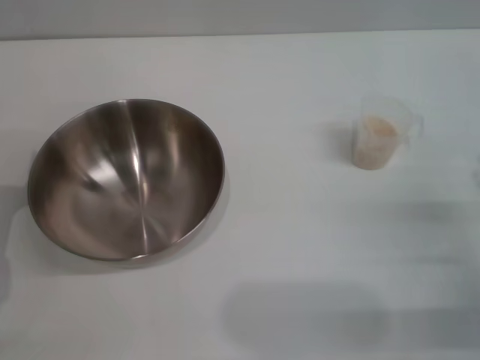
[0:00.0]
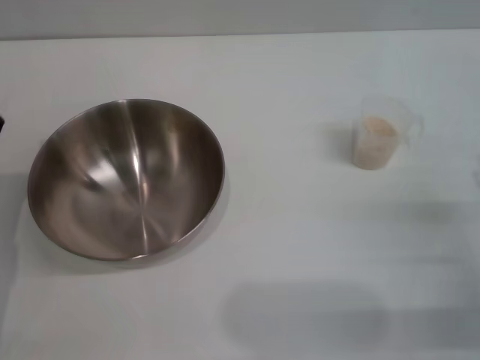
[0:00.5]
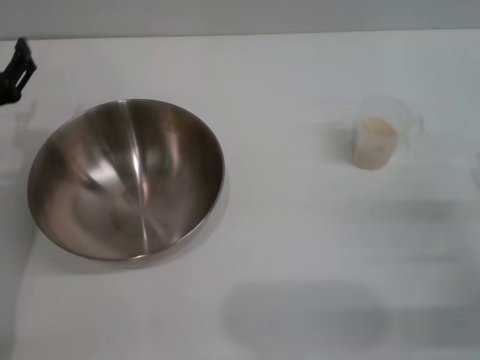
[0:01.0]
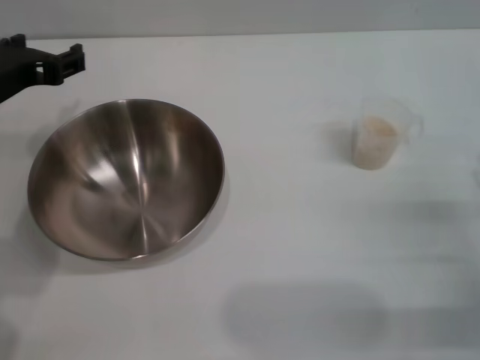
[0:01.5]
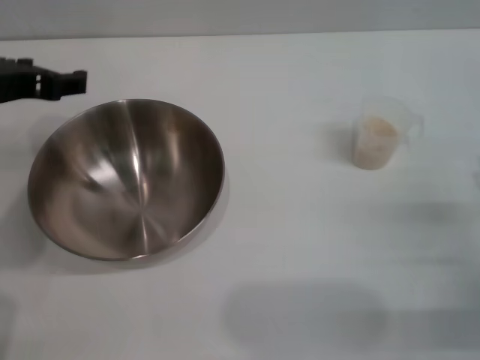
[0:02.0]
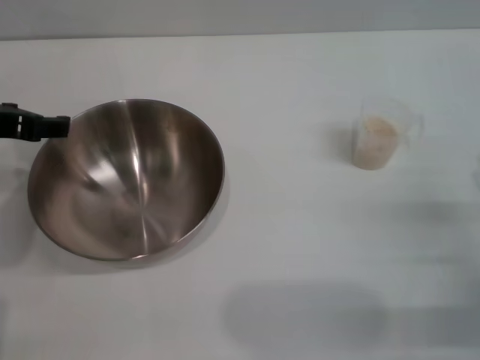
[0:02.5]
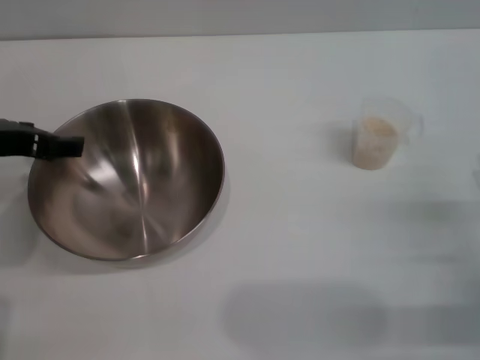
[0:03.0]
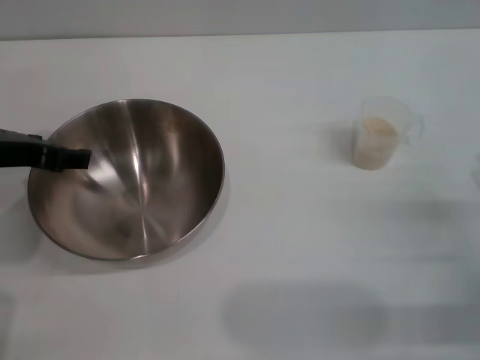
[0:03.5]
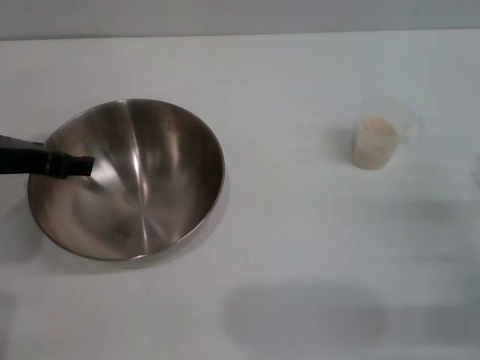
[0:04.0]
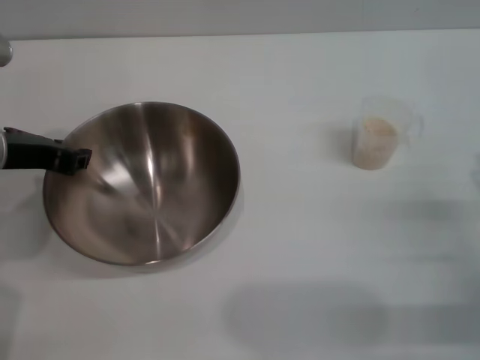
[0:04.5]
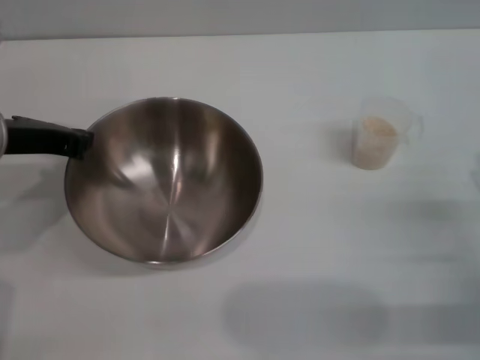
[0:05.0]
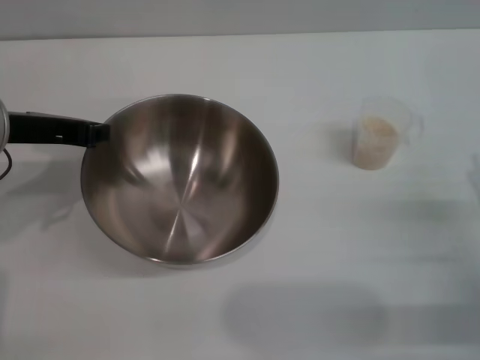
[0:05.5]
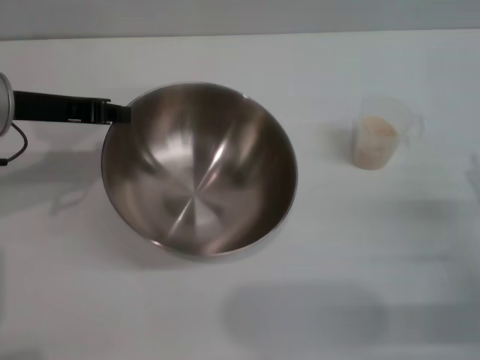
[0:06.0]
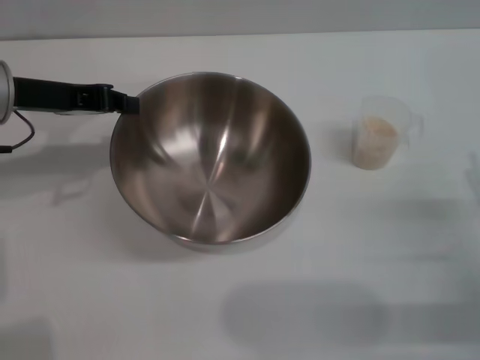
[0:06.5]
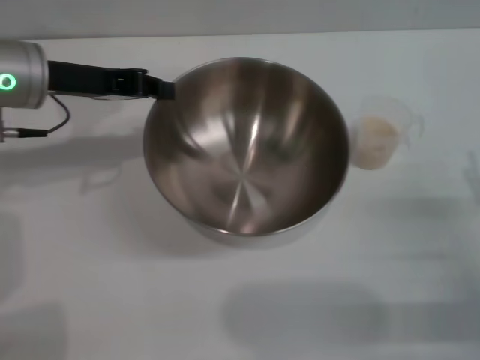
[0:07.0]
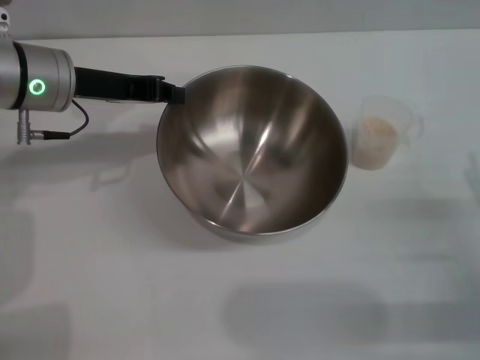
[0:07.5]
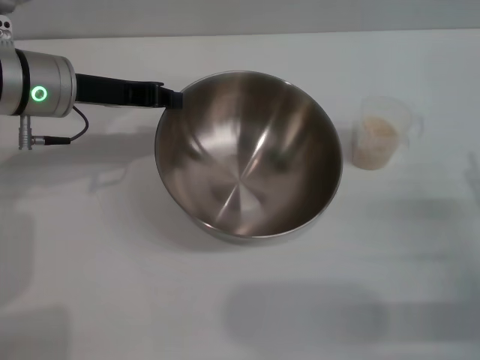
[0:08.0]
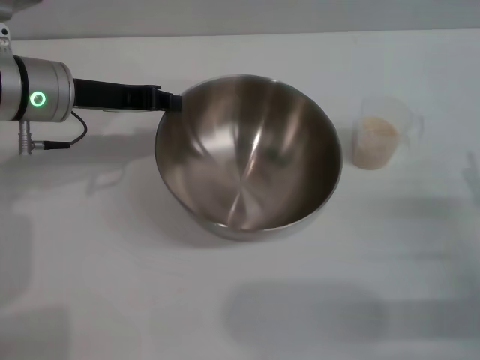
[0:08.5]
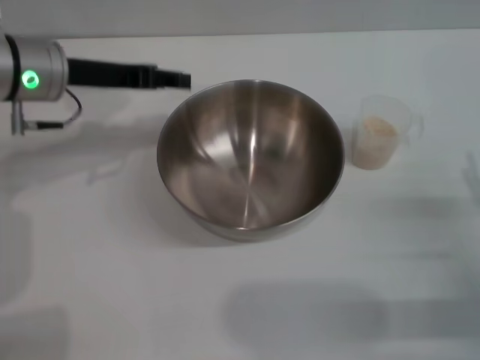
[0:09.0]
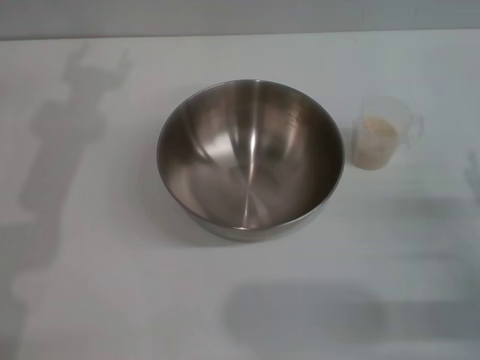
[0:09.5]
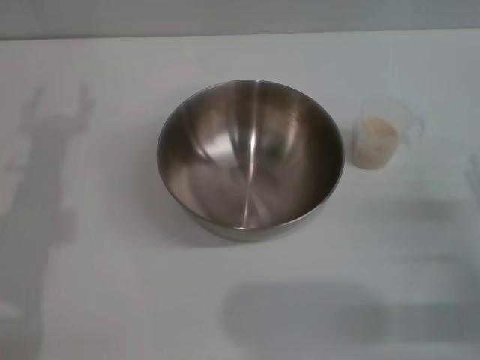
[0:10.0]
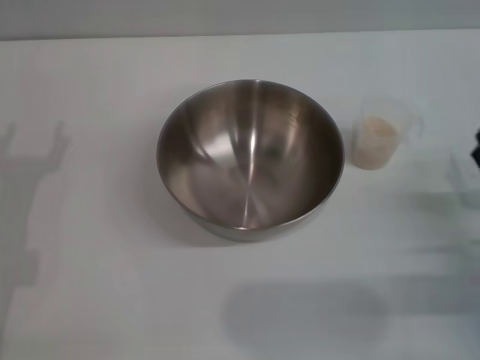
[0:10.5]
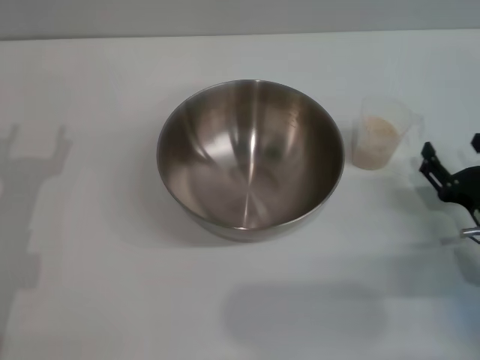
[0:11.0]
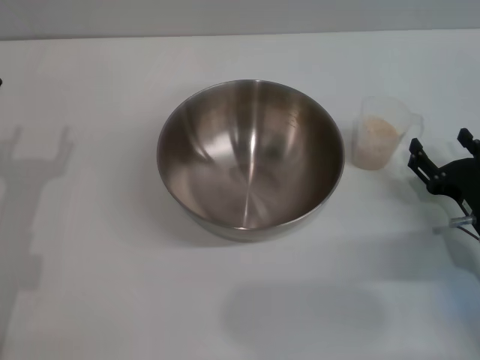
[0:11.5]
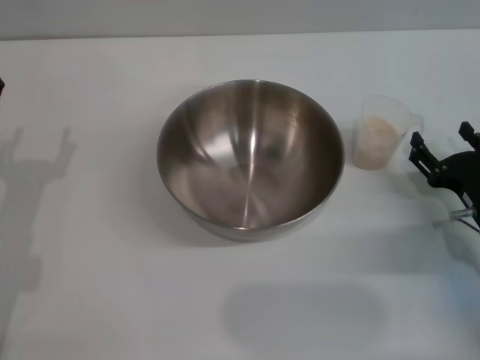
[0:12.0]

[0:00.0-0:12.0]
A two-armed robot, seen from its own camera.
Task of the whole recording: Place the bowl in the middle of the table with one hand and pour the rice from the grain cup into it with the other hand.
Step, 0:00.0 to 0:05.5: Pick up the bowl with the left gripper.
Step, 0:06.0 to 0:08.5: Place the bowl in the center of view with the left gripper.
0:00.0 to 0:02.0: The left gripper goes some 20 cm upward and forward.
0:02.0 to 0:04.0: The grippers move only a little.
0:04.0 to 0:06.0: The left gripper closes.
0:06.0 to 0:08.0: The left gripper changes place by about 5 cm.
0:08.0 to 0:10.0: The left gripper shifts roughly 10 cm backward, and opens its fingers.
0:10.0 to 0:12.0: The right gripper travels forward by some 5 cm, while the left gripper heads downward, covering roughly 5 cm.

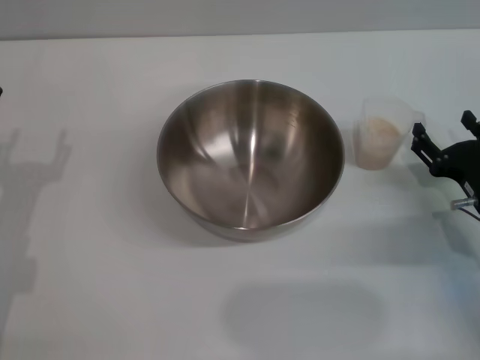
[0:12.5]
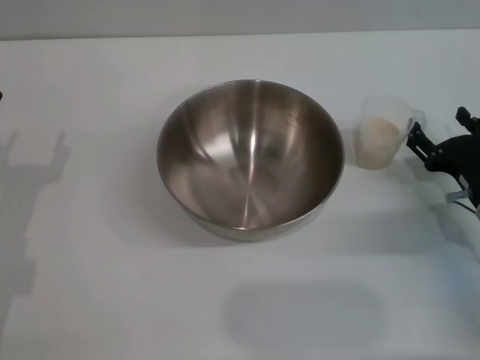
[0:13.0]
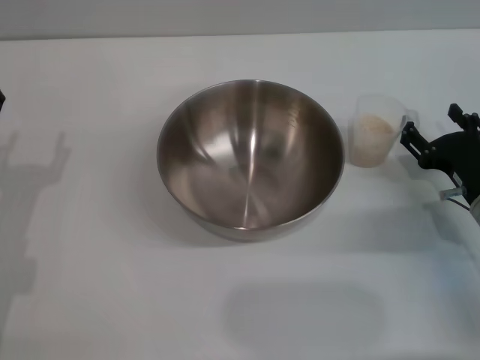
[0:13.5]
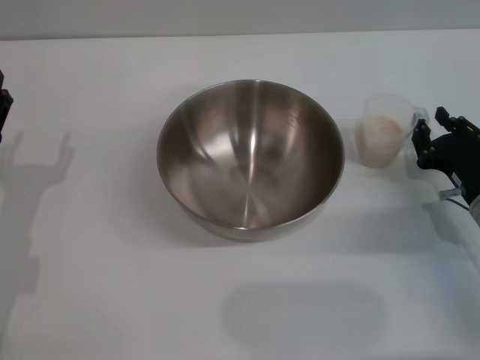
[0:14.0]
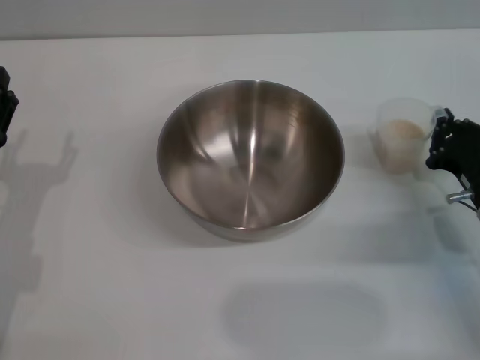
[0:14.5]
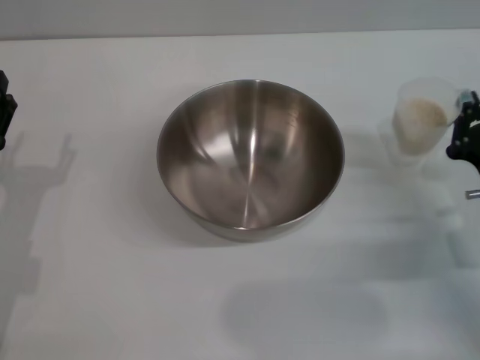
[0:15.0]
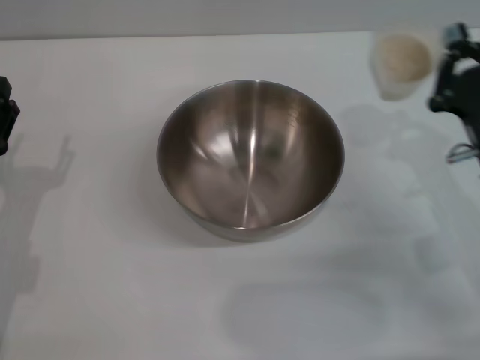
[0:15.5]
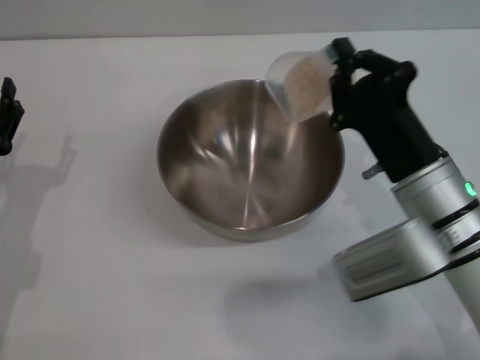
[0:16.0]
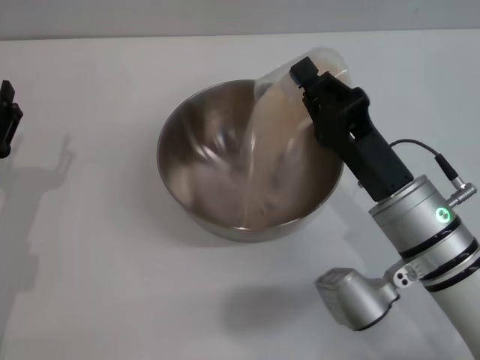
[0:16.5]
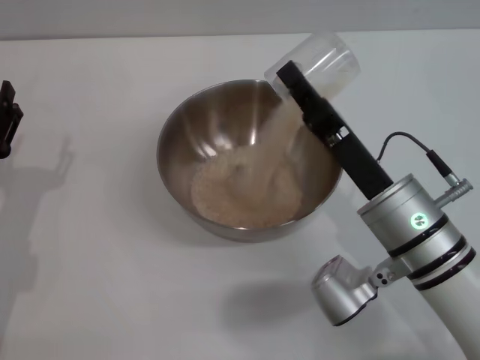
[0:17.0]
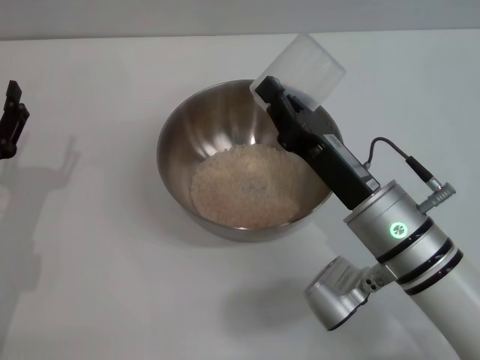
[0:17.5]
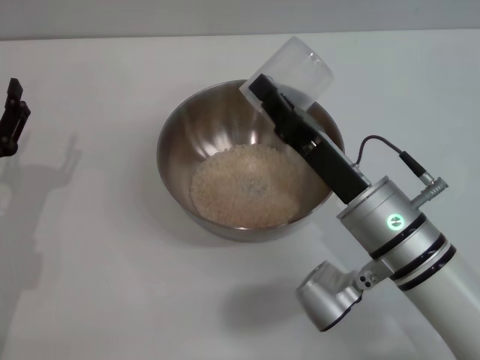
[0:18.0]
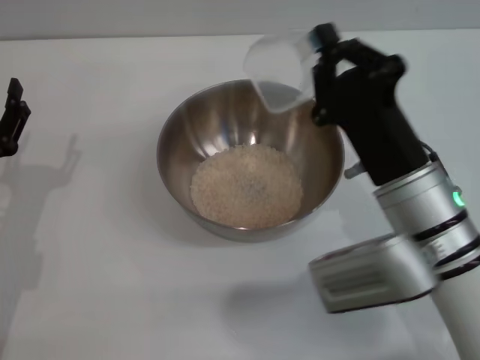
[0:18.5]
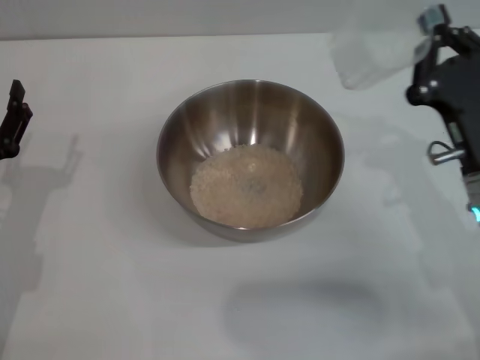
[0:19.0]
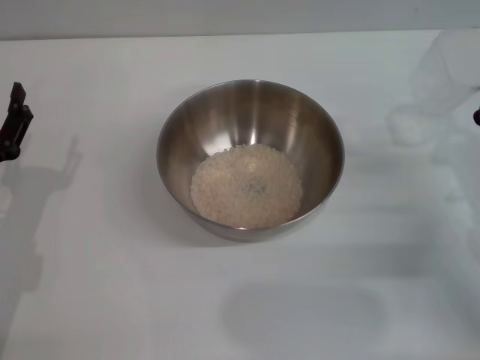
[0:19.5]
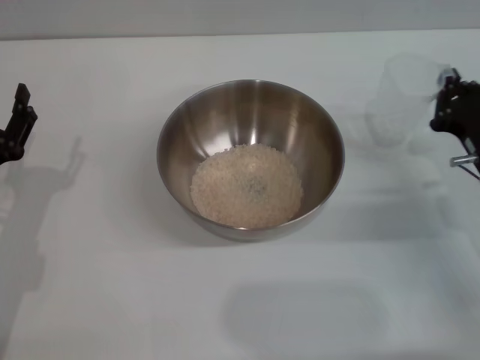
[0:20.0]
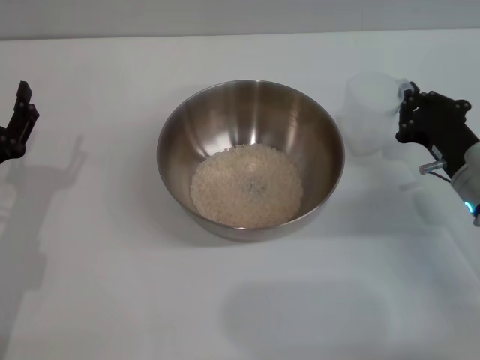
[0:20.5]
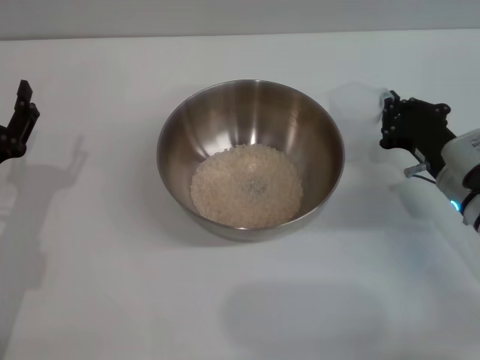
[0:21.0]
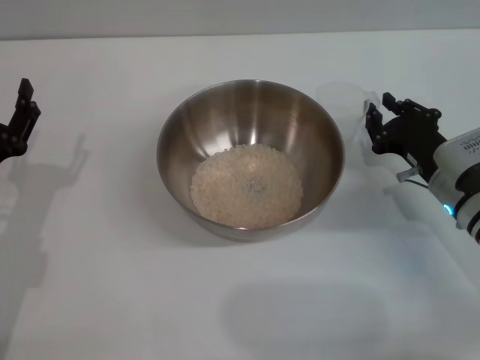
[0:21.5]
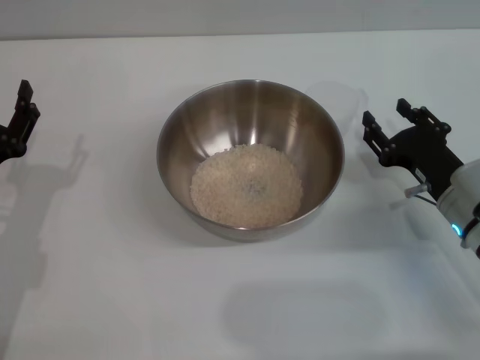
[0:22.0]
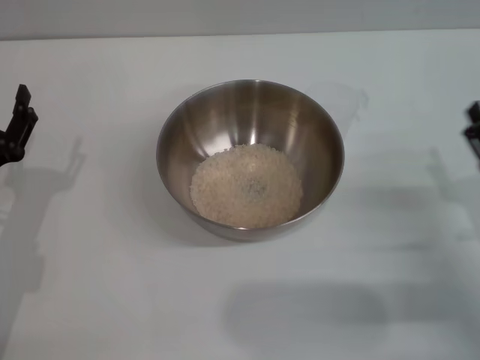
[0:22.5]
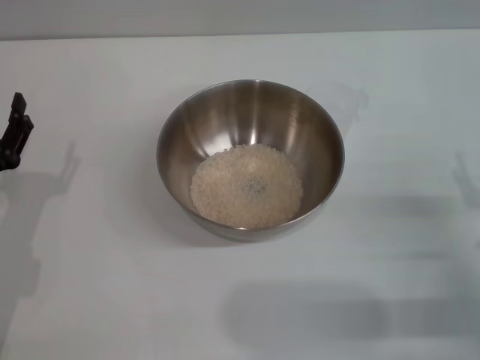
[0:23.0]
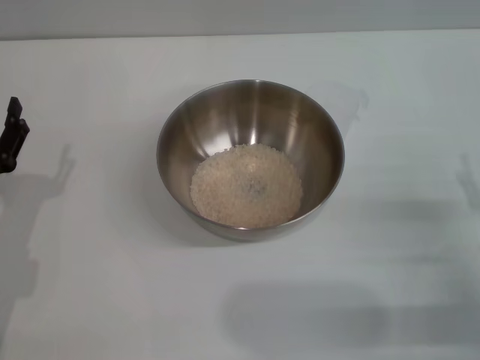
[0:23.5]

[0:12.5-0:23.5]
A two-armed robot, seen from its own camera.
Task of the whole recording: Place the bowl in the middle of the table with one hand and pour the rice from the grain cup into it with the other hand.
Step, 0:12.5 to 0:14.5: Pick up the cup with rice in it with the right gripper.
Step, 0:15.0 to 0:18.0: Pour the rice from the cup into the bowl with the right gripper.
Step, 0:18.5 to 0:21.5: Place the cup on the table with the right gripper.
0:12.5 to 0:14.5: The right gripper closes.
0:14.5 to 0:16.0: The right gripper goes approximately 10 cm to the left and upward.
0:18.0 to 0:20.0: The right gripper is displaced to the right by roughly 15 cm.
0:20.0 to 0:21.5: There are only small adjustments of the grippers.
0:21.5 to 0:23.5: The right gripper heads backward and to the right, covering about 15 cm, and opens its fingers.
